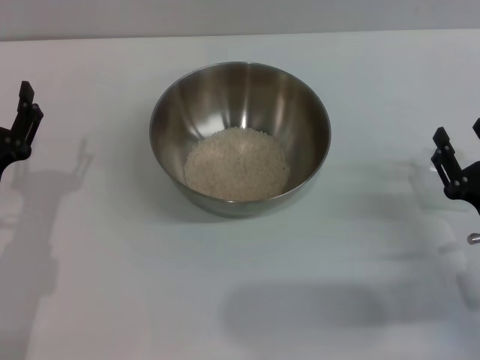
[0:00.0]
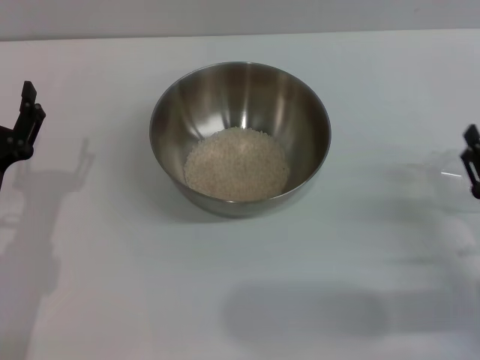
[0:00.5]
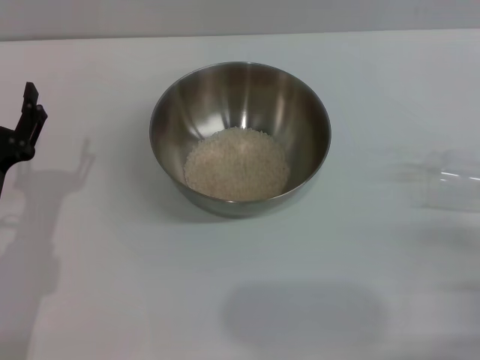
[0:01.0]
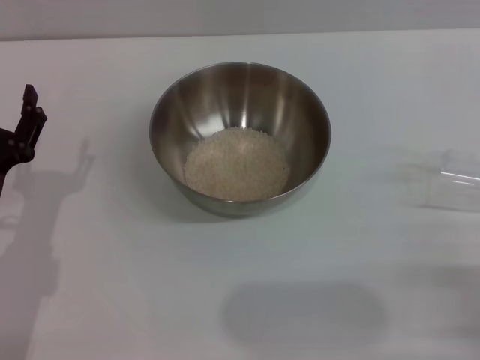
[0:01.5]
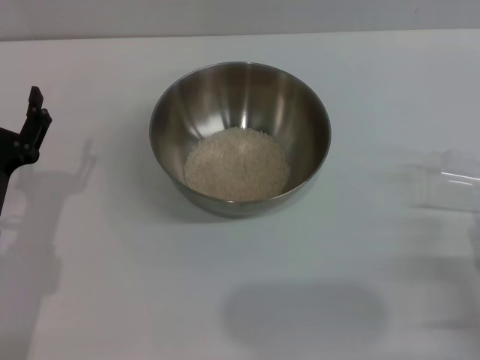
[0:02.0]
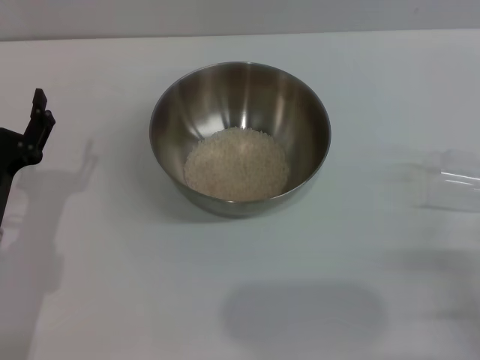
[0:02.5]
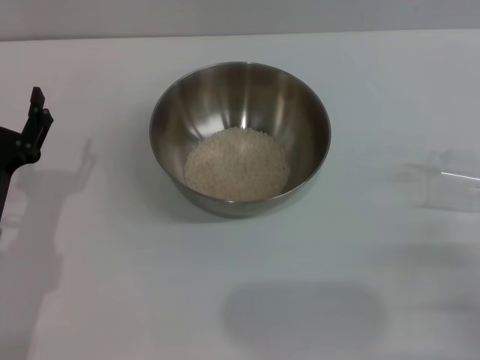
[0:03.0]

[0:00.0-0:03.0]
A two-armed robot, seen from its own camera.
Task of the whole recording: Place the bowl in the middle of the table with one hand and pour the rice from the grain cup into it with the other hand.
0:00.0 to 0:01.5: The right gripper moves backward, about 10 cm.
0:01.5 to 0:03.0: The grippers make only small movements.
